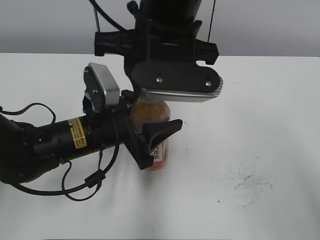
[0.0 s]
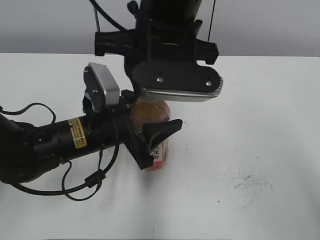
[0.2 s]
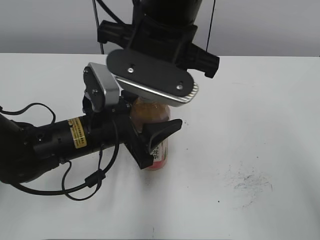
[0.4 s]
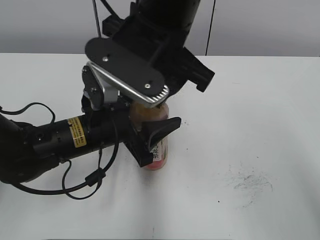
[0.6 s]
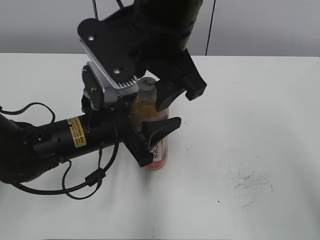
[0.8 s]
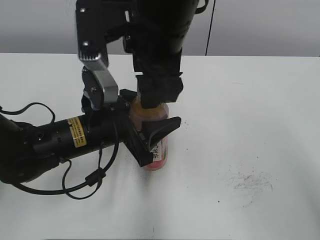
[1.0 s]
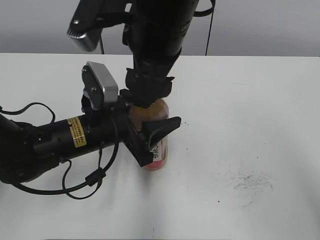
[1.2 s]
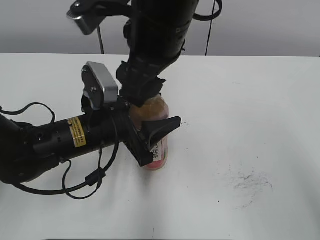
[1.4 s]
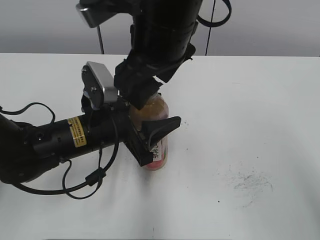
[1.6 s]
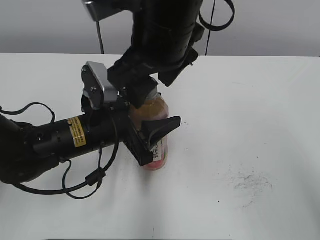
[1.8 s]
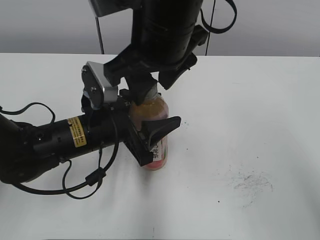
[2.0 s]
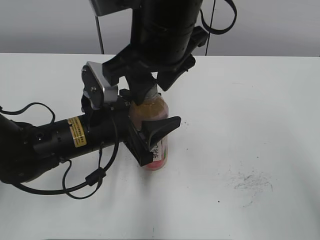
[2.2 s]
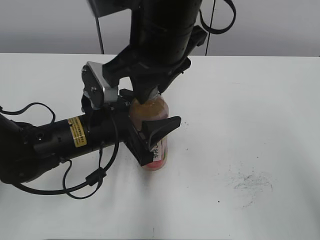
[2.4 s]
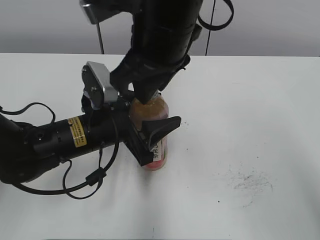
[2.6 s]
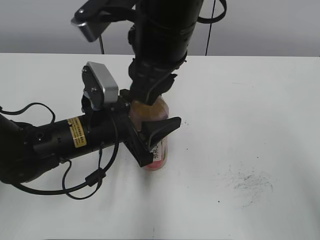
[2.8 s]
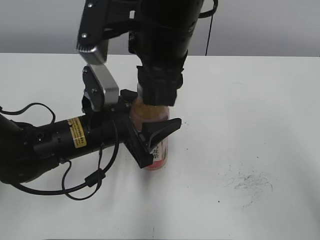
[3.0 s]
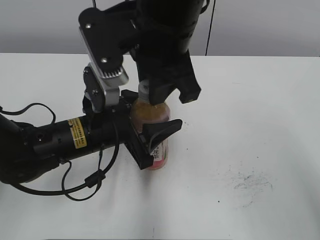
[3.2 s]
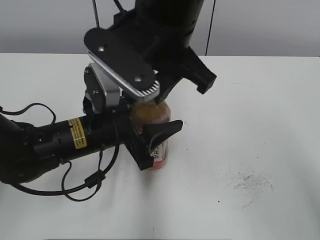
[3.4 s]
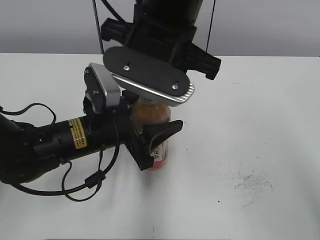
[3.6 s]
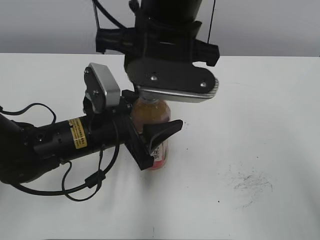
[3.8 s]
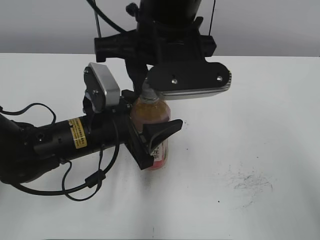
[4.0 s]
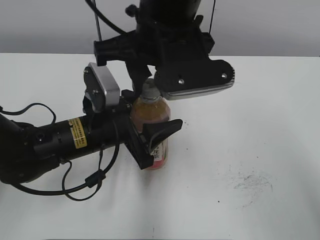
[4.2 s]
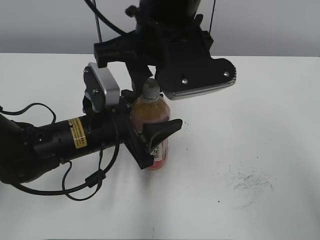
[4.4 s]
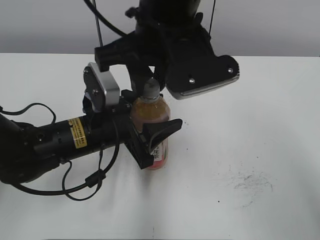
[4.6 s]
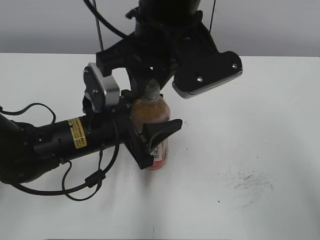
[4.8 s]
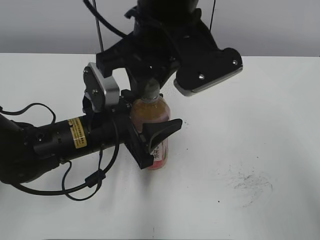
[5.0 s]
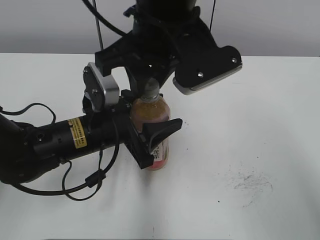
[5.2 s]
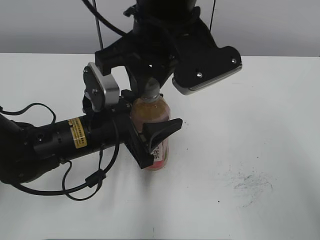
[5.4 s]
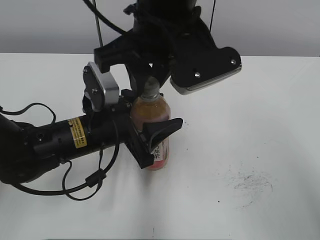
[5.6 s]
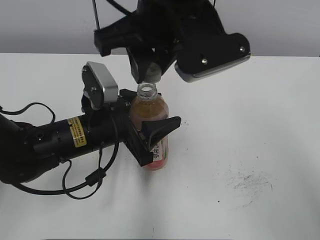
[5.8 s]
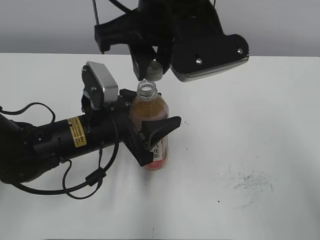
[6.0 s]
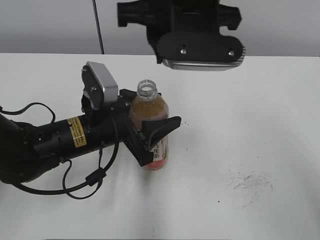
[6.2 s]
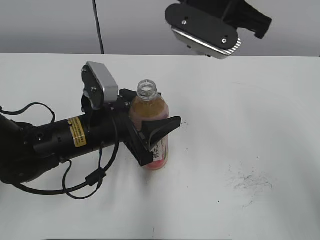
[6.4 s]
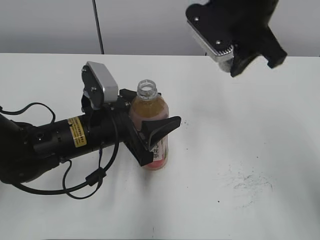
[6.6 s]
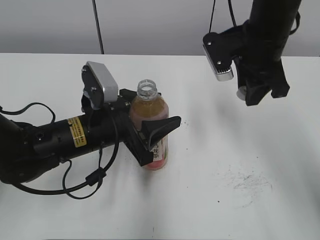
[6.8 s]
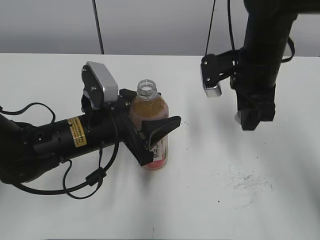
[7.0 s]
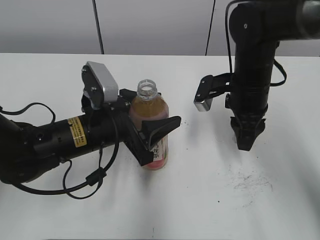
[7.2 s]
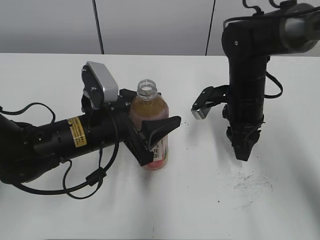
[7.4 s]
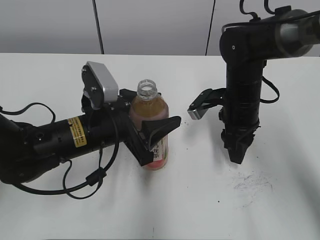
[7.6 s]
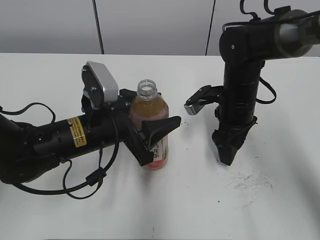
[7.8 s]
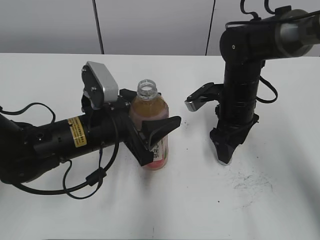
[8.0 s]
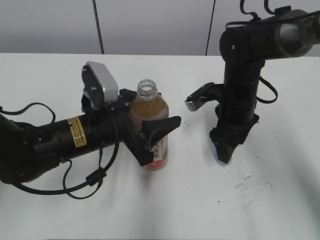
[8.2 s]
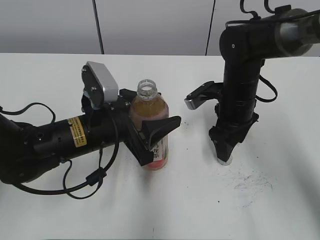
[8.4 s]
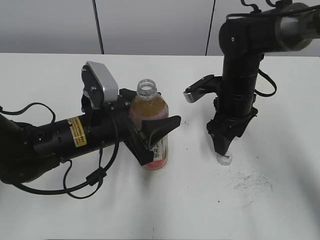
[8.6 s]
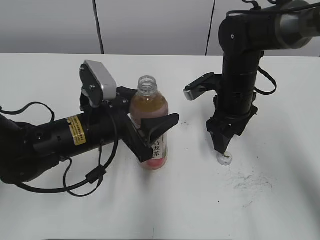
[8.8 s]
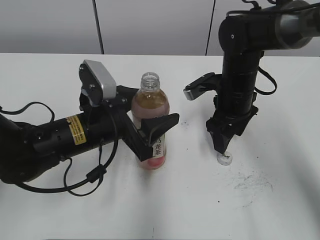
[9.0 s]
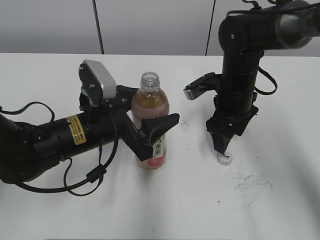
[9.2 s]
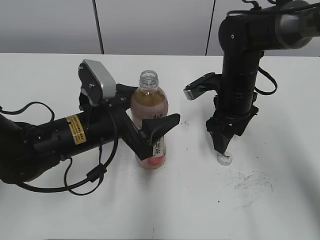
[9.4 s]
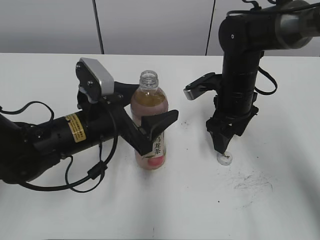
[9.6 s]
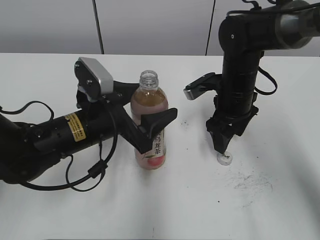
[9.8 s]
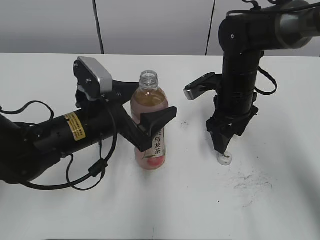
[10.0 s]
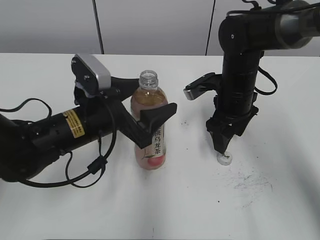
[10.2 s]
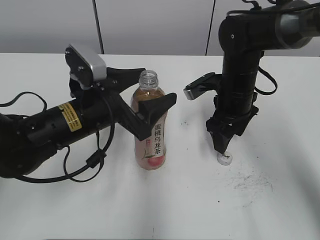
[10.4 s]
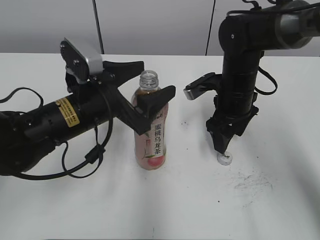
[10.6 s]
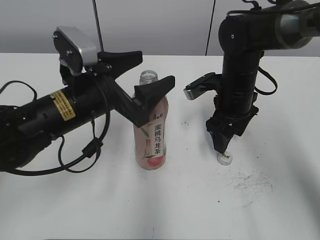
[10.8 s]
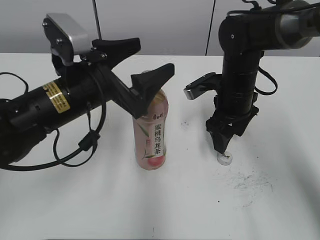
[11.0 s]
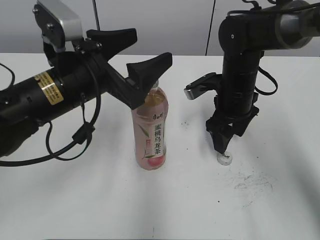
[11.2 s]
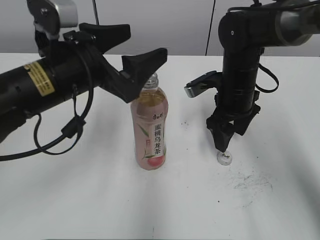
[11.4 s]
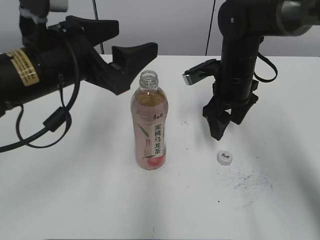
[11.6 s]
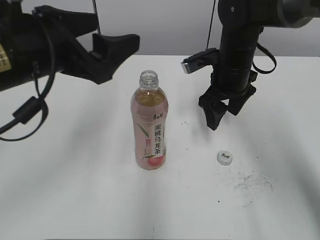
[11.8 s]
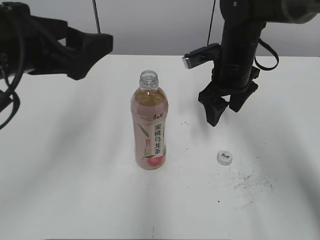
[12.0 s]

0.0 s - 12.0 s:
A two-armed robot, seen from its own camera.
Step, 6.2 s - 8.6 s: Place the bottle cap on the right.
Step, 8.8 s - 10.4 s: Place the Peach Oolong Tea with the left hand.
0.0 s - 1.6 s: The right gripper opens up.
1.6 s - 3.0 s: The right gripper closes its fingers.
4.4 s - 6.0 s: There are only small adjustments of the grippers.
6.0 s - 7.6 s: The right gripper shifts about 25 cm downward and to the right.
7.6 s - 9.0 s: The left gripper opens its fingers; the right gripper opens.
9.0 s - 10.4 s: The left gripper opens its fingers.
10.4 s - 12.0 s: The left gripper moves upward and to the left, about 15 cm.

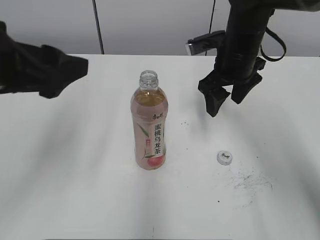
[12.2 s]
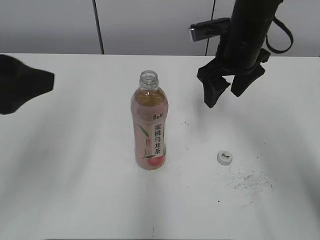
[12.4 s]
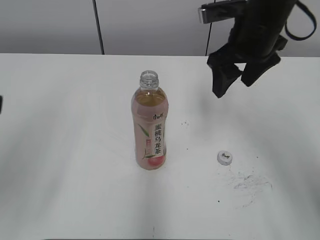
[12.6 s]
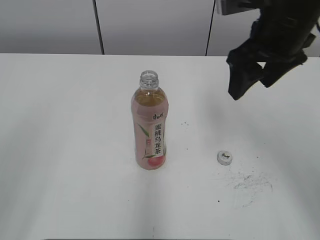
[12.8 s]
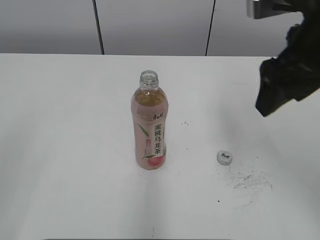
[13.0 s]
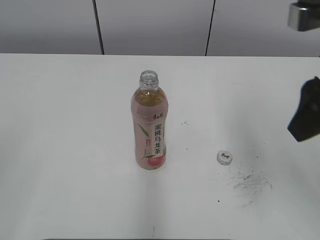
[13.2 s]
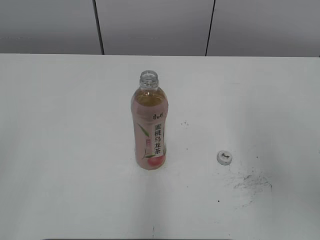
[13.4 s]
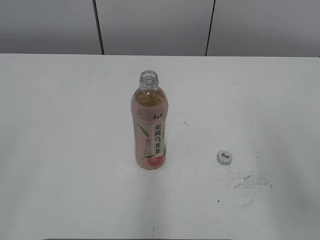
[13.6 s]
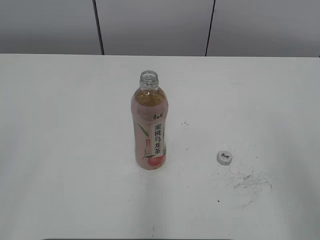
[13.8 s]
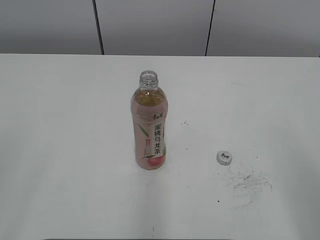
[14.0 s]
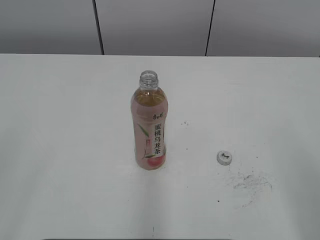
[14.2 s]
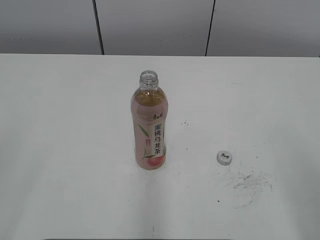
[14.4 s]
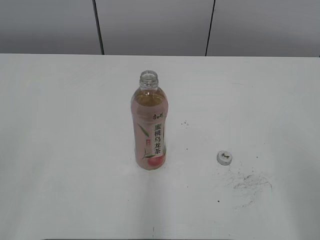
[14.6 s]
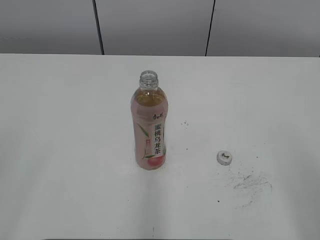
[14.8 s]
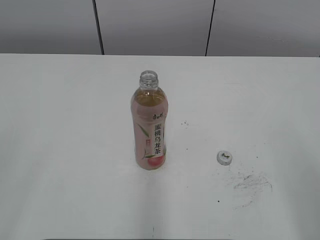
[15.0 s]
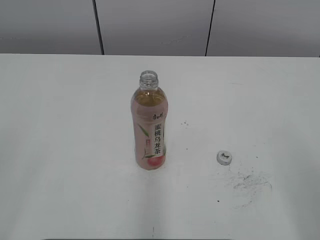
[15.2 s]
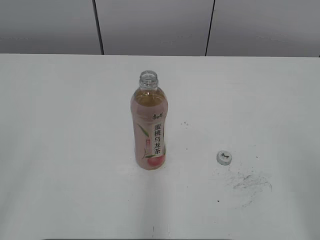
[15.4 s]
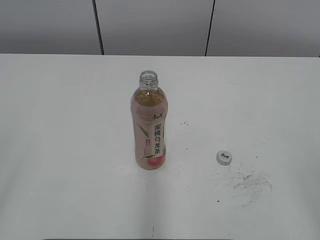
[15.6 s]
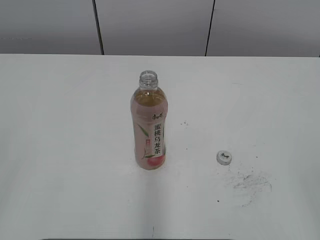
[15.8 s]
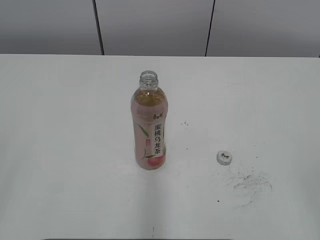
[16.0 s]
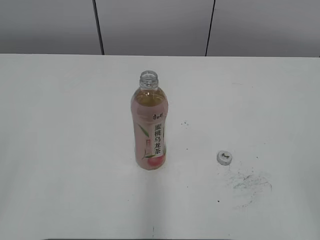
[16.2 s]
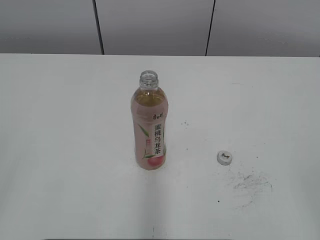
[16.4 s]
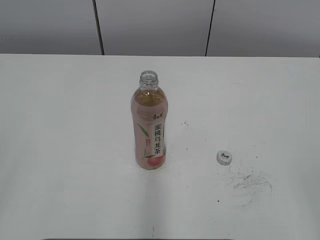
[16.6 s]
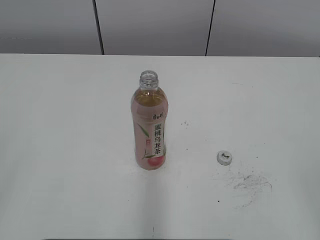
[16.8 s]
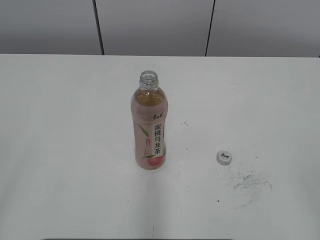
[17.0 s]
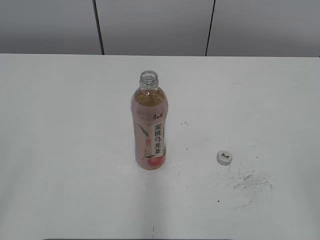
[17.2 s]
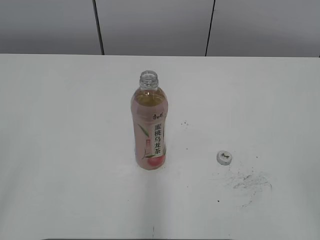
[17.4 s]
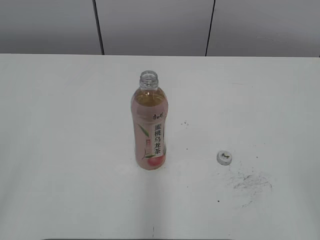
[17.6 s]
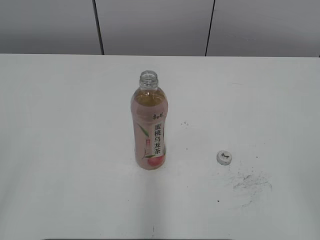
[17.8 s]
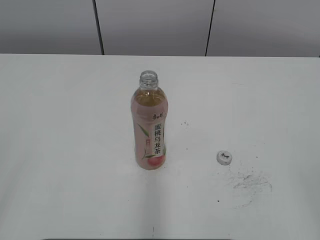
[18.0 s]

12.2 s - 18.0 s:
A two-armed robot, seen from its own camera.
12.2 s - 13.6 s: The right gripper shifts some 30 cm backward, upward and to the right. The left gripper heads backward and to the left, covering roughly 25 cm.
16.6 s - 18.0 s: Neither gripper changes place.

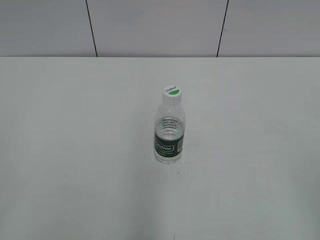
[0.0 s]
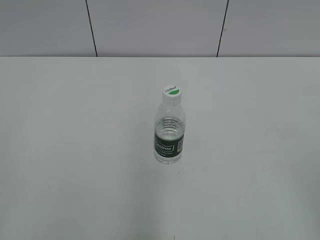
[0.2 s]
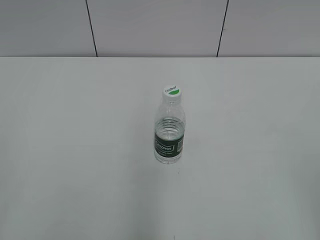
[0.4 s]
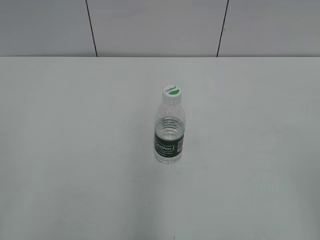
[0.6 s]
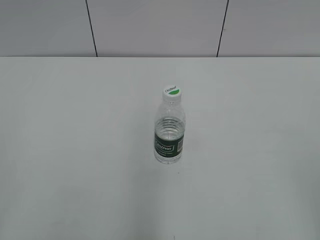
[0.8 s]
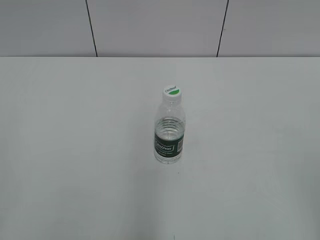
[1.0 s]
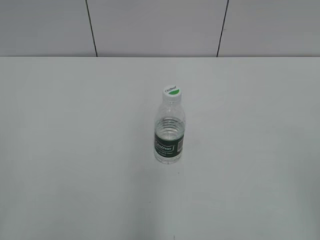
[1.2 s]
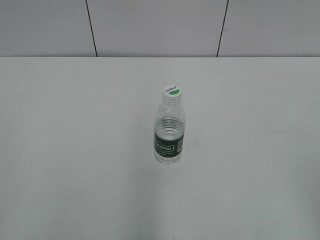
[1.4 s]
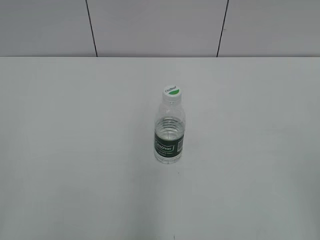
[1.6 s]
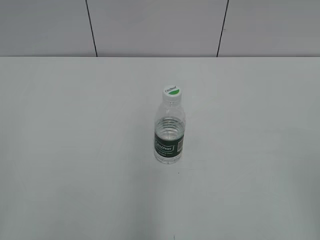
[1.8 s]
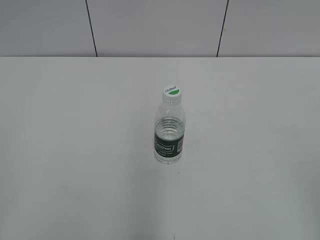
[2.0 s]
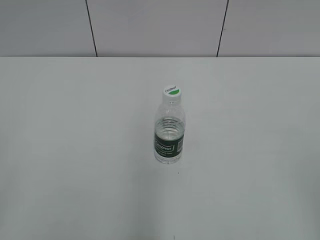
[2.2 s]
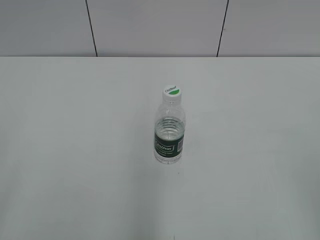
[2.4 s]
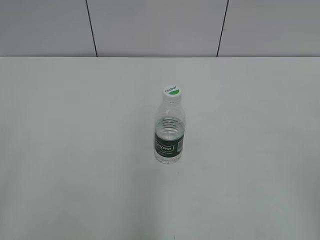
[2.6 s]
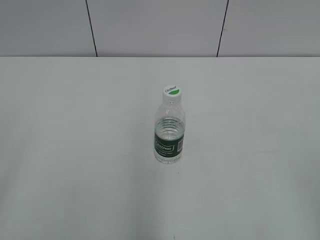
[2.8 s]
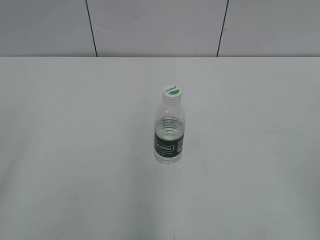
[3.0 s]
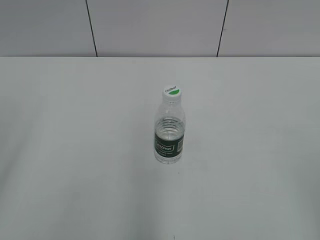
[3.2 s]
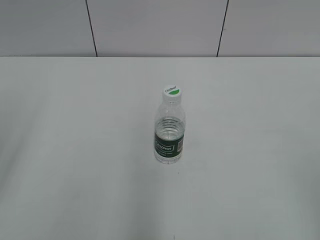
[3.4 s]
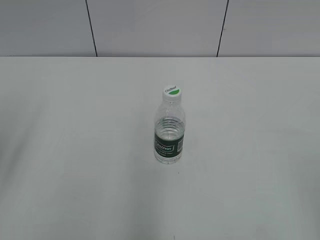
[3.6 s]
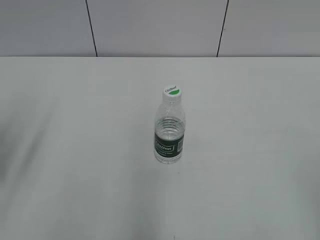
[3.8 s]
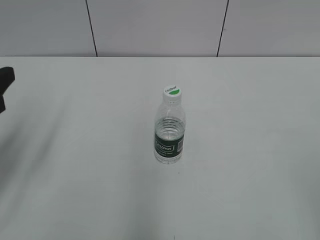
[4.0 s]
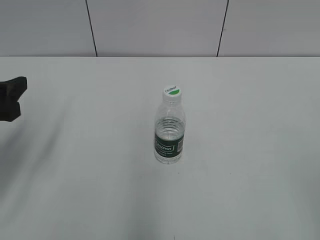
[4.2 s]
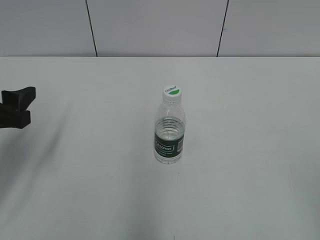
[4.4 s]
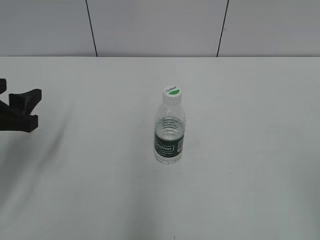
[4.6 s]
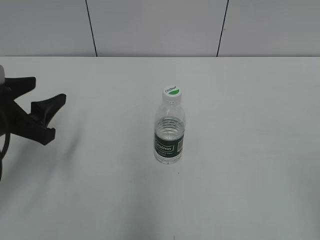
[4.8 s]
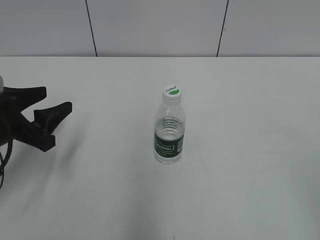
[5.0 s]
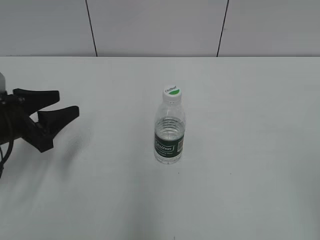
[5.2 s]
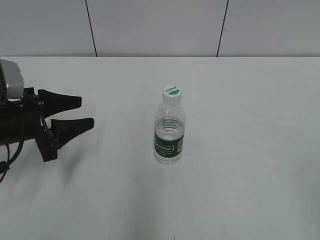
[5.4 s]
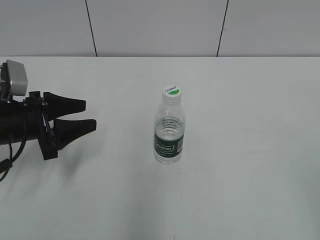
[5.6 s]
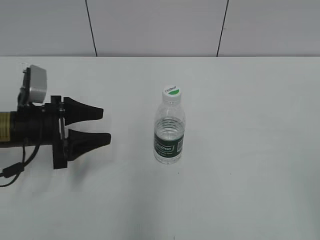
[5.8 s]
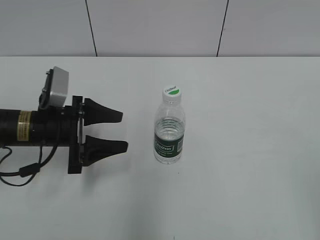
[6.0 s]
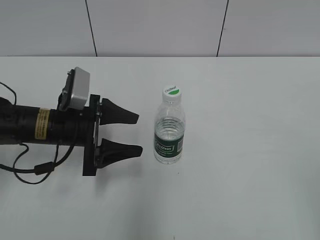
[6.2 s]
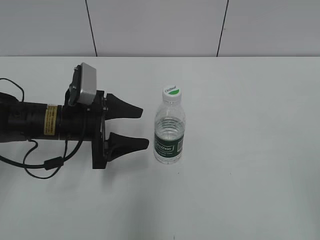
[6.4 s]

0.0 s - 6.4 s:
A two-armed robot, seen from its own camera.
3.2 s - 4.8 s: The left gripper is displaced forward, downward and to the right by about 20 cm.
4.8 s - 6.4 s: The left gripper travels to the right, forward and downward by about 10 cm.
